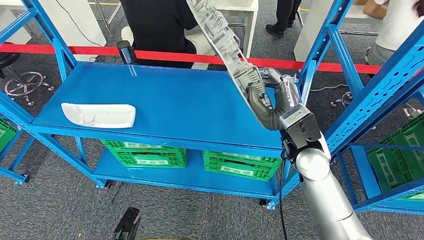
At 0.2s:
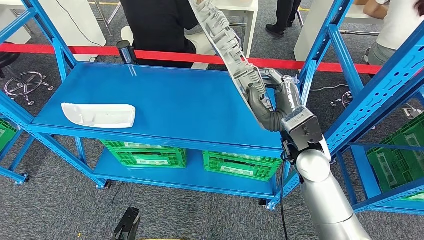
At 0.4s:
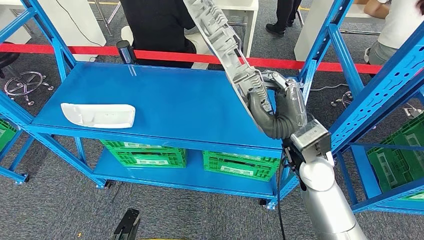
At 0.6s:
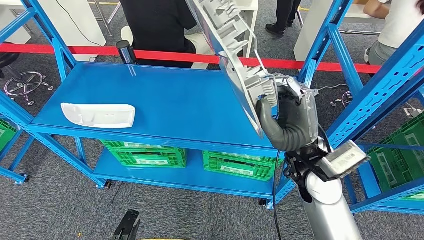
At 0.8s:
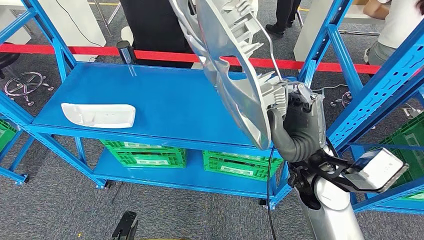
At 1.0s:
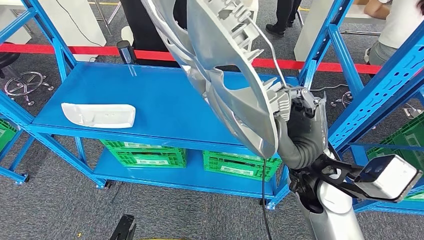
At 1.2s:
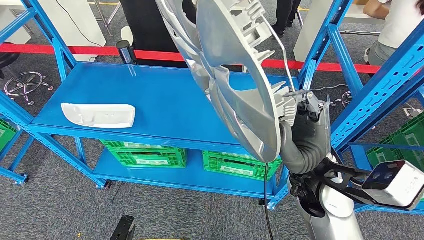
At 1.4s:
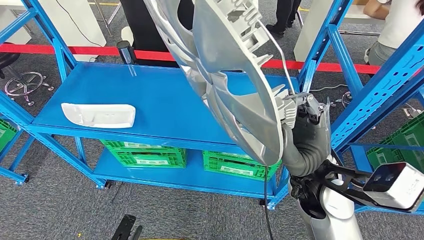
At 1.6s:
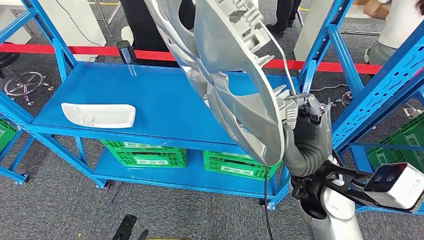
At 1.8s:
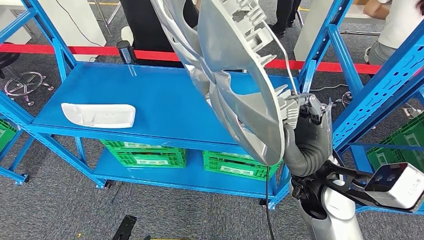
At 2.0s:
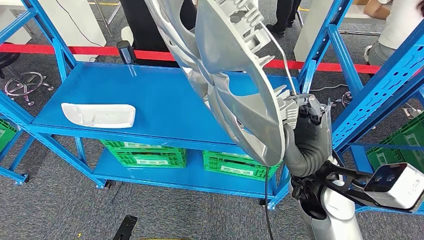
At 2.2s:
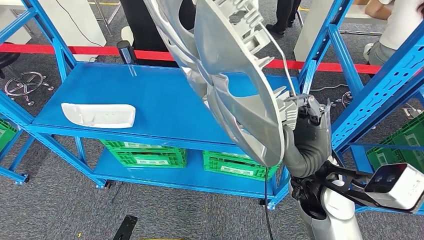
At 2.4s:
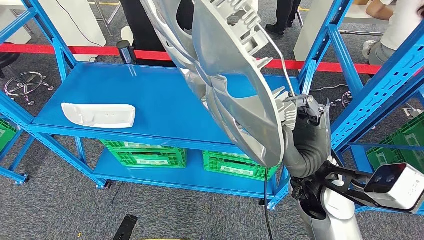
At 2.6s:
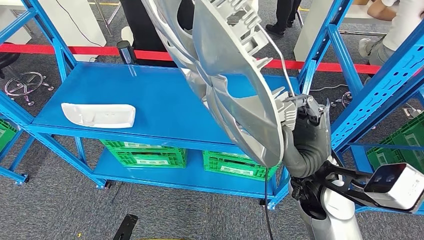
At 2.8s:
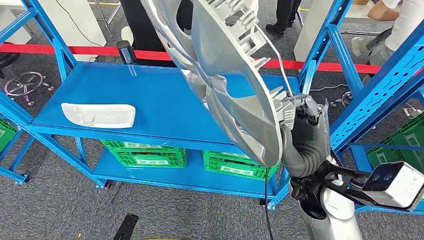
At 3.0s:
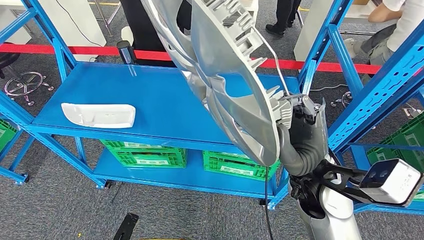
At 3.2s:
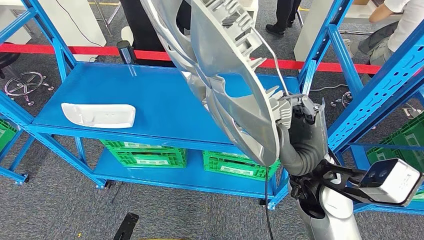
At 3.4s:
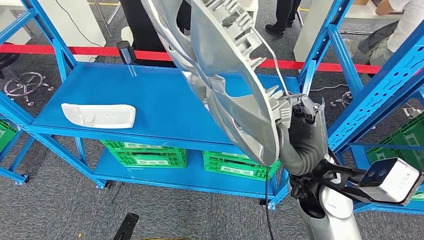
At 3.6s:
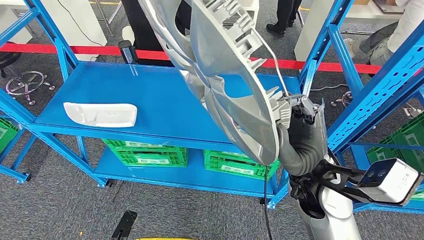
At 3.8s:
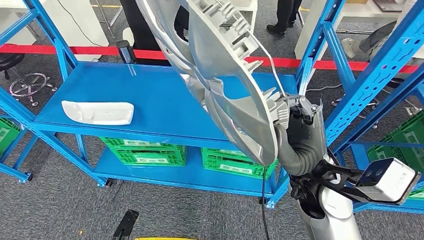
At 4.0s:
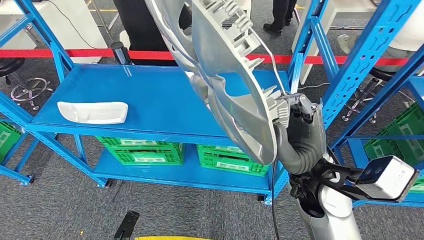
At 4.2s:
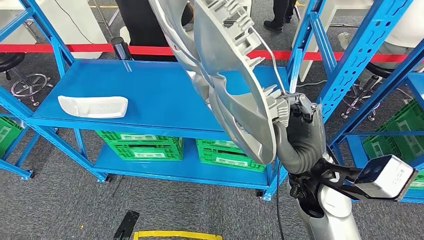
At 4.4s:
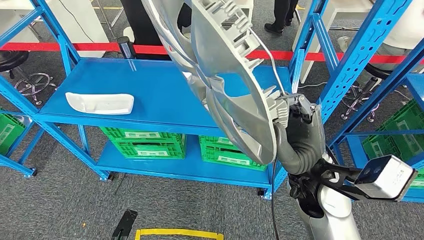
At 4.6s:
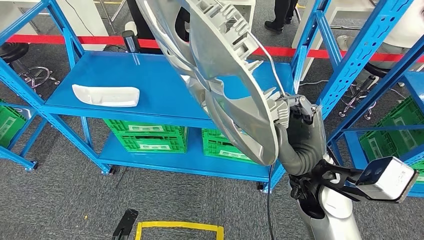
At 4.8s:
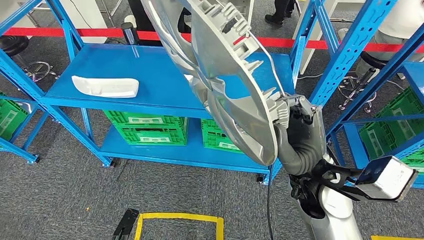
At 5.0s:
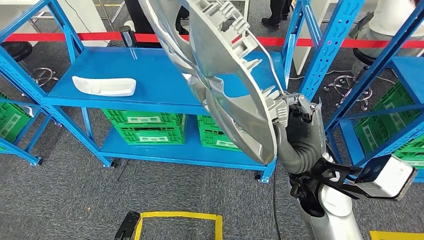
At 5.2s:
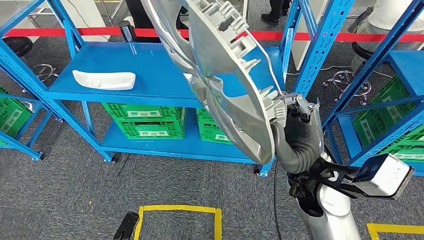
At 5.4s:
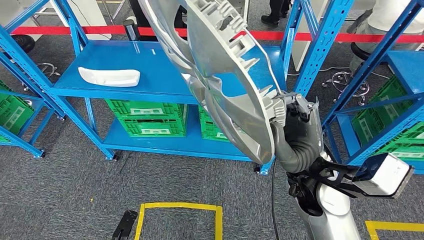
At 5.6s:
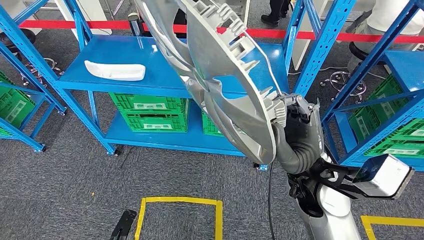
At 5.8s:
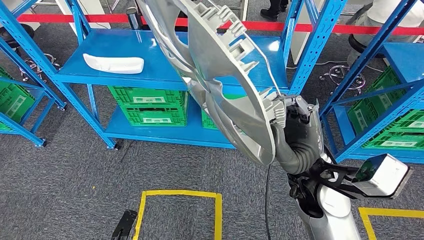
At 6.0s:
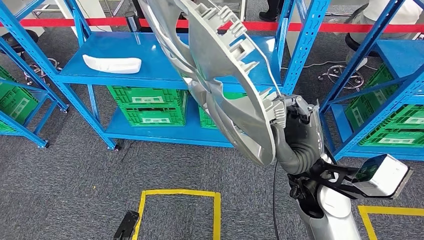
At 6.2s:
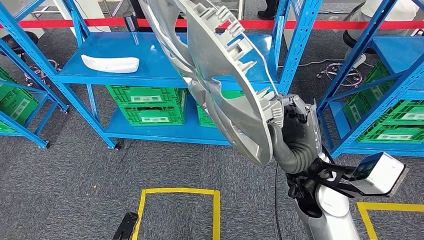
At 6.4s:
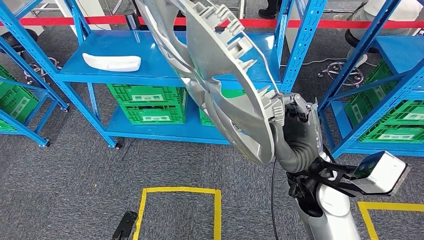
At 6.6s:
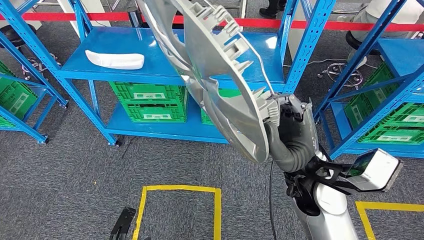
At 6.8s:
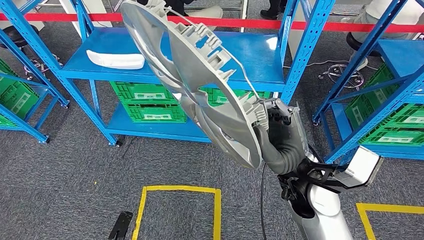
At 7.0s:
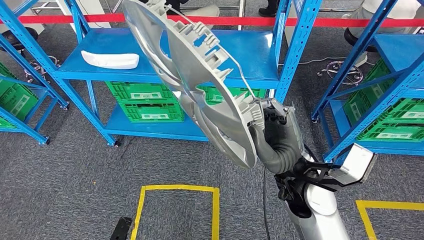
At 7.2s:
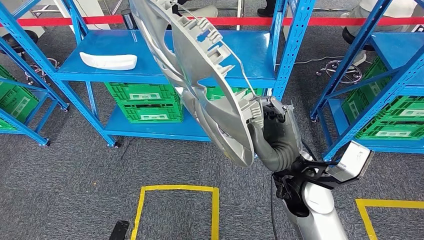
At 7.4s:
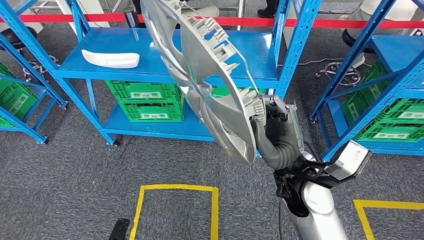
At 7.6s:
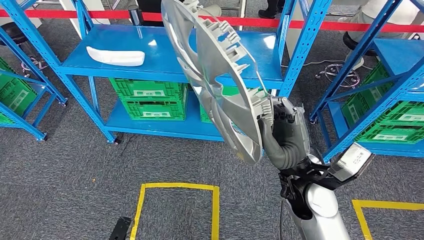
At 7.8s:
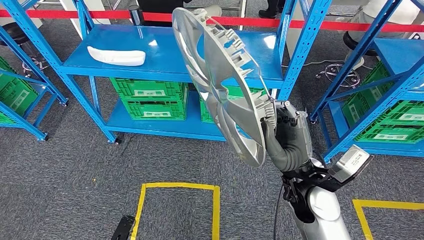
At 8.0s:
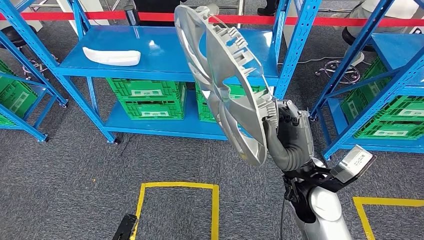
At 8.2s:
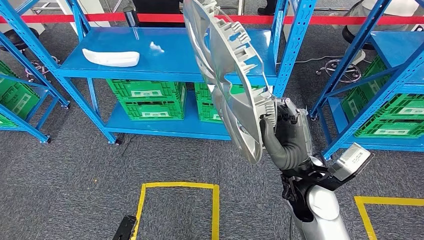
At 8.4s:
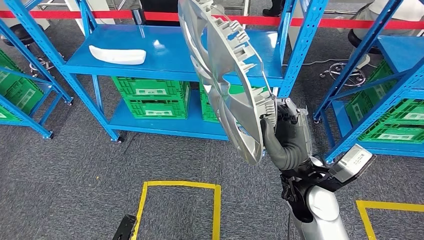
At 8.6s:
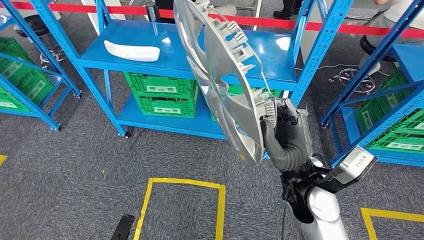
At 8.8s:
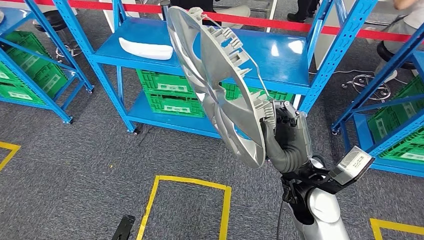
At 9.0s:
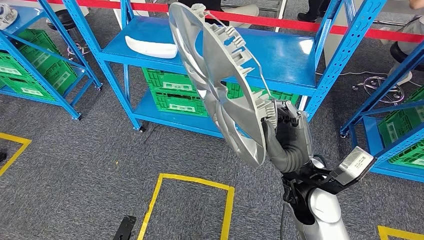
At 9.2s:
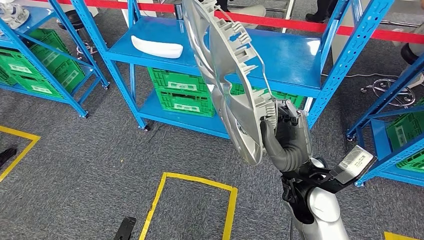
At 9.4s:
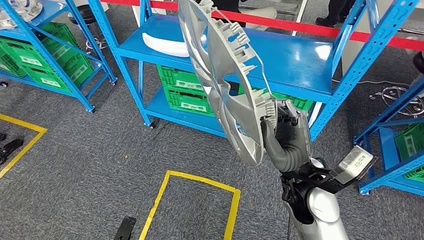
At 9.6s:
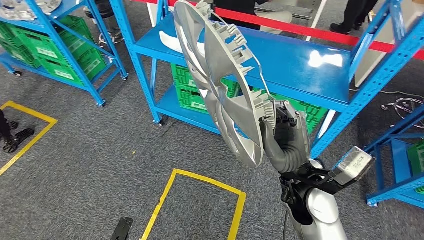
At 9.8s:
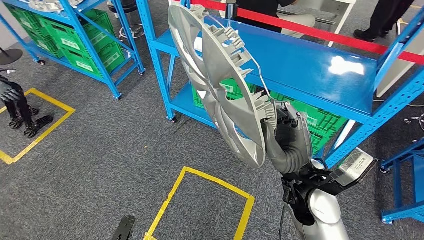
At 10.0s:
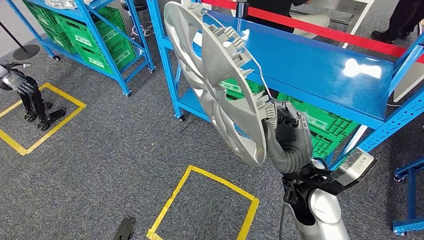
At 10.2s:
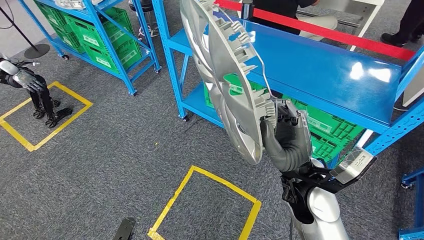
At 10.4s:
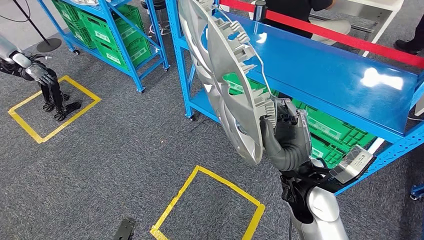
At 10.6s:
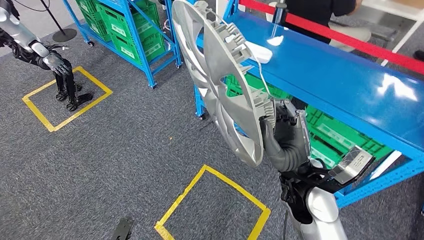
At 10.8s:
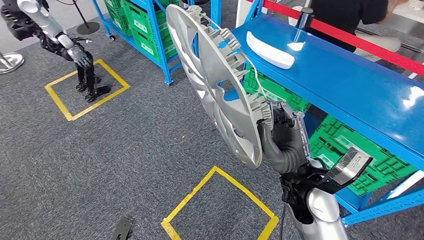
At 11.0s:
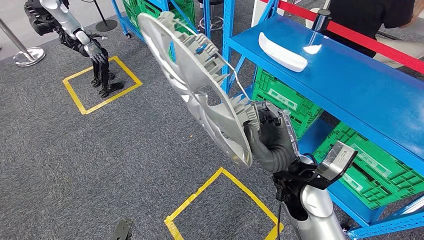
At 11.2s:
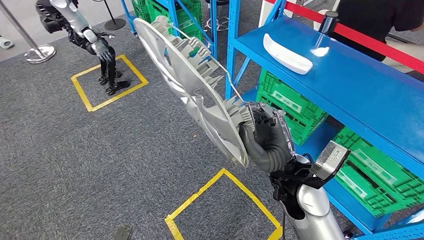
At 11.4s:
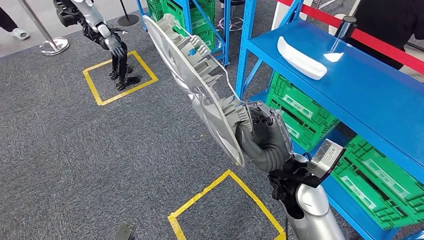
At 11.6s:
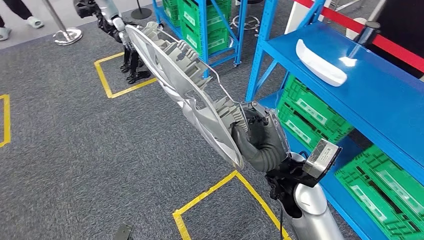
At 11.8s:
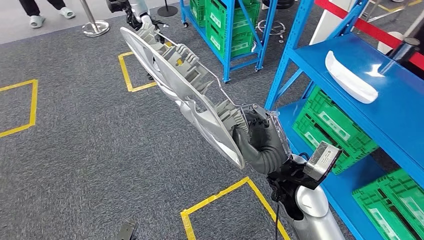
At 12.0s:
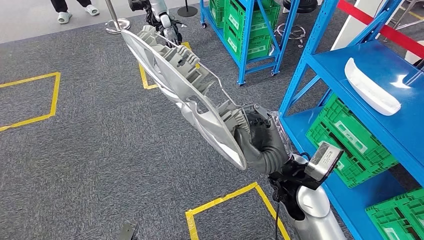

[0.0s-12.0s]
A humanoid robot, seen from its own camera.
Step, 0.0s to 2.4s: Pick up the small parts from the shelf.
1.6s to 3.0s: Both hands stay put.

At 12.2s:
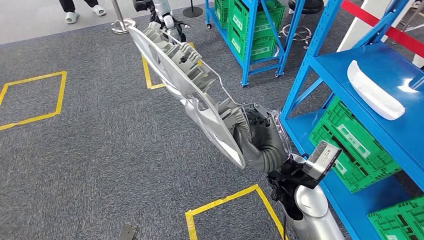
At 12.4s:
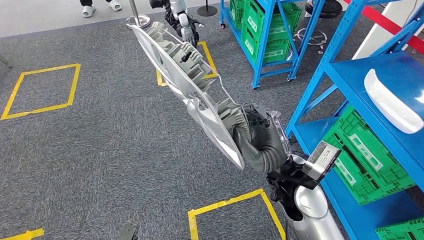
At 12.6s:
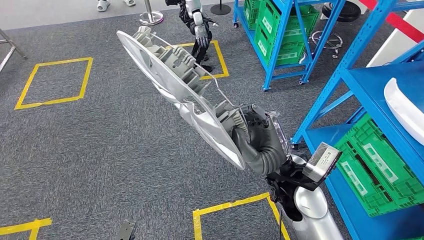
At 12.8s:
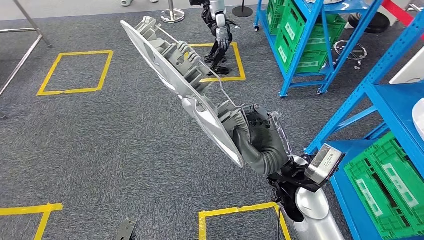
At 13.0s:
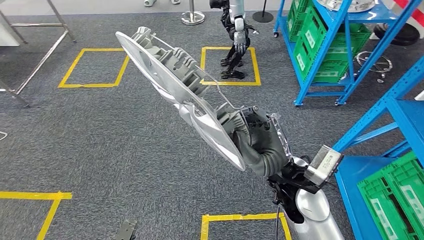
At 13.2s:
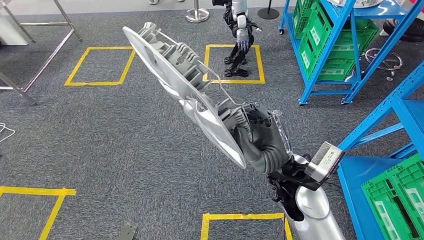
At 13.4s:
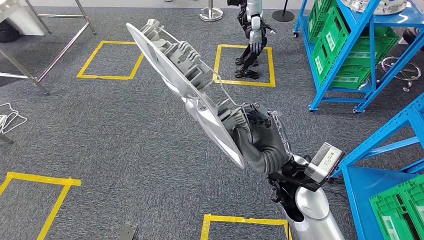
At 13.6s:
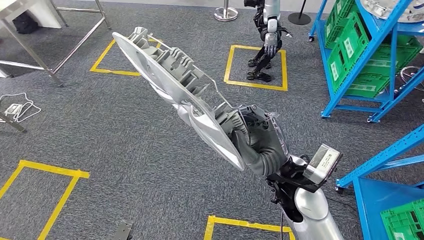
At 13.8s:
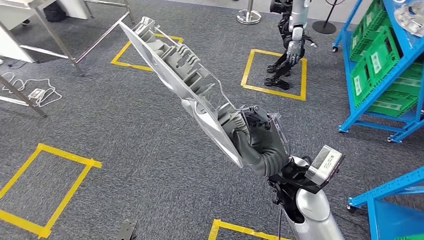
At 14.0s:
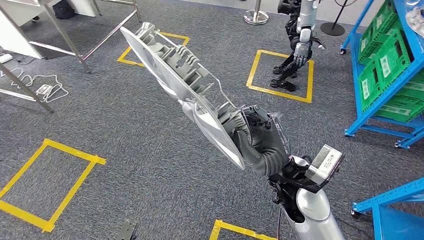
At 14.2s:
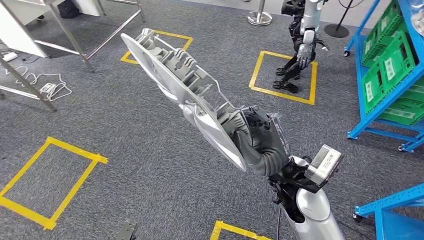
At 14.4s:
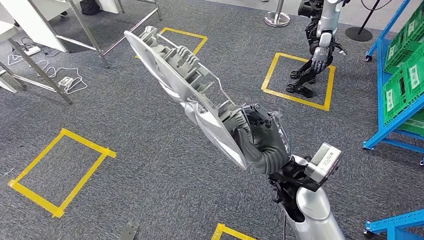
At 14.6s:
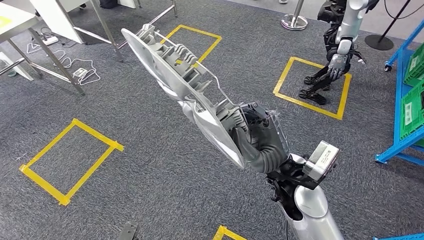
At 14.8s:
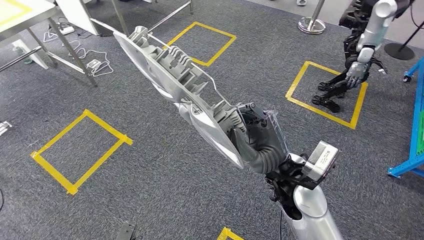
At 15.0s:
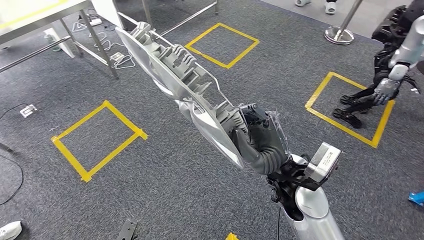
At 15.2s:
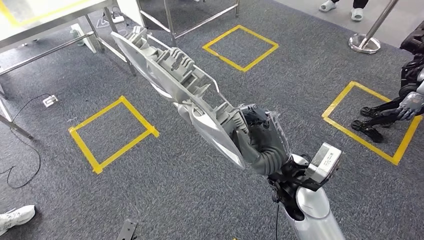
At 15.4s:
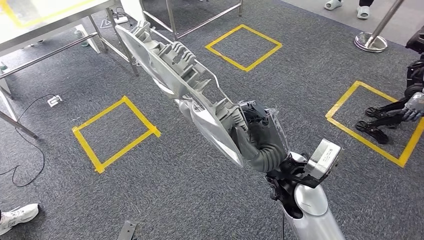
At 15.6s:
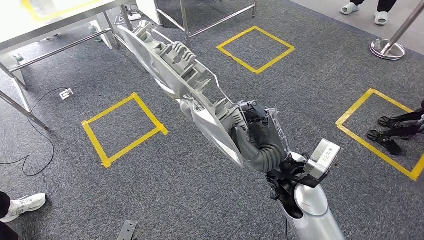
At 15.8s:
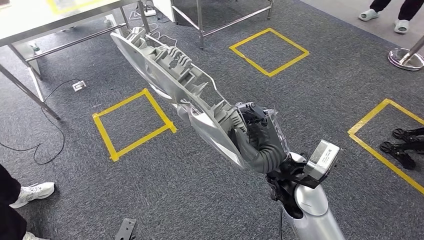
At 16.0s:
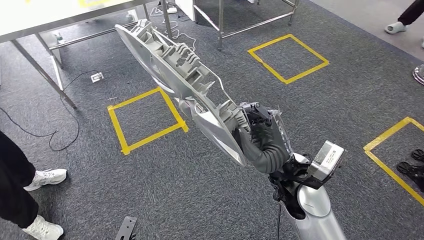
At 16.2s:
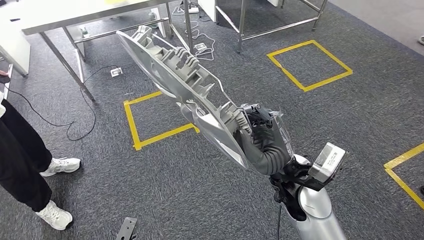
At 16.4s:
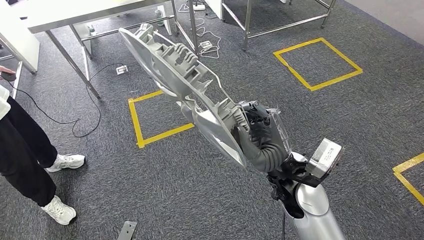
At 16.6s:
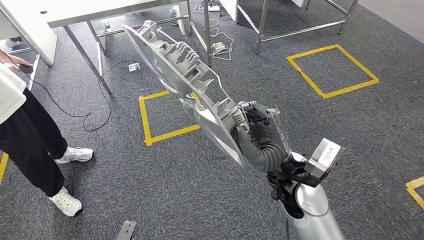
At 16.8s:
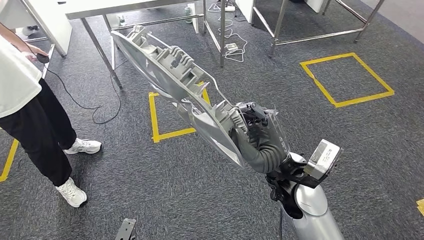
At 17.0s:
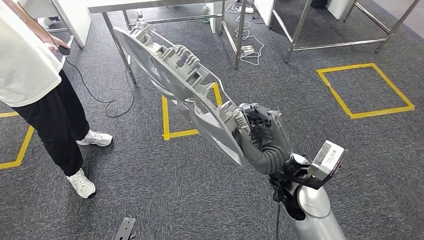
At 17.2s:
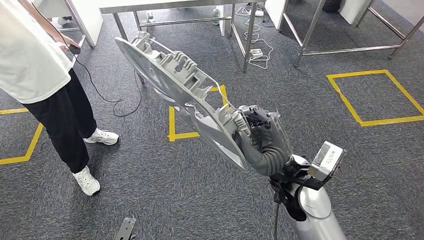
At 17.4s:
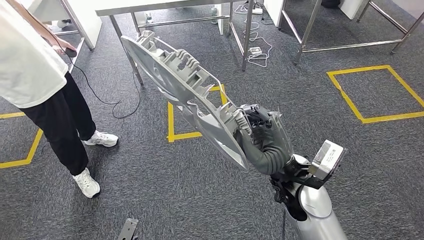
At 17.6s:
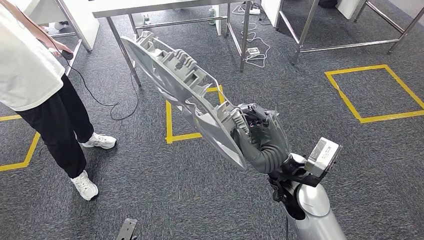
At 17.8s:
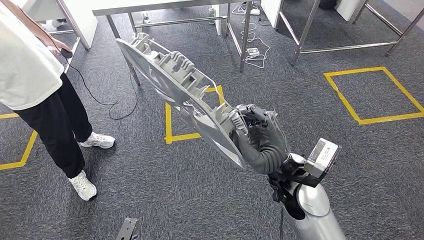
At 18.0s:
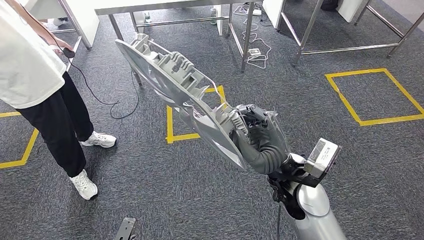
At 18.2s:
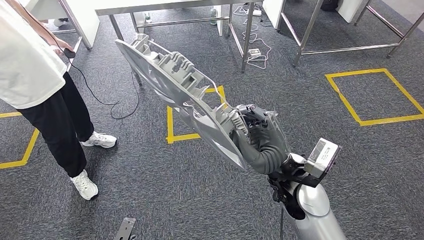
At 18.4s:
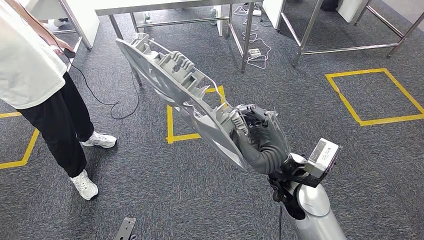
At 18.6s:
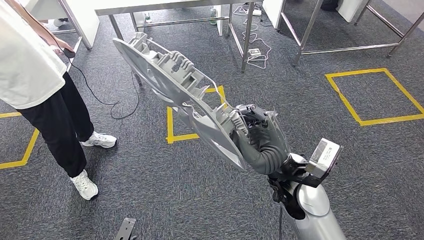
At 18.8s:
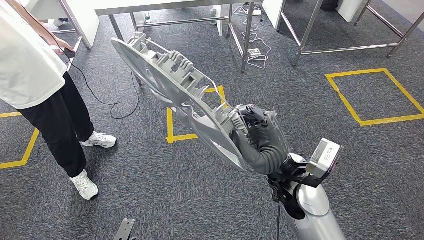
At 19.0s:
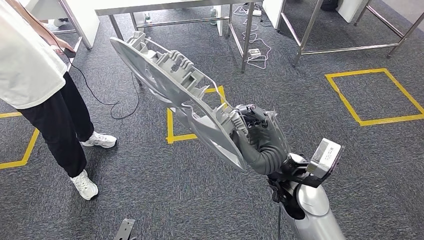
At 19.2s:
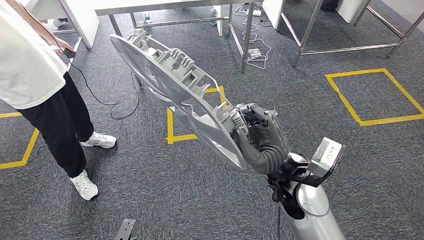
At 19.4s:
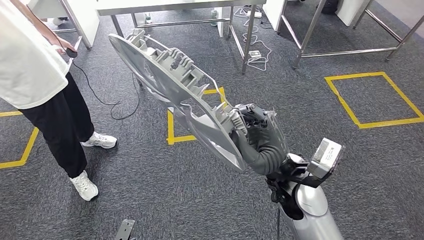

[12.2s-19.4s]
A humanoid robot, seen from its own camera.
18.0s to 19.4s: Neither hand changes place.
